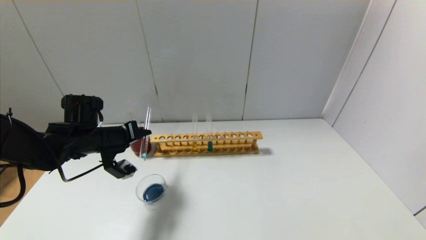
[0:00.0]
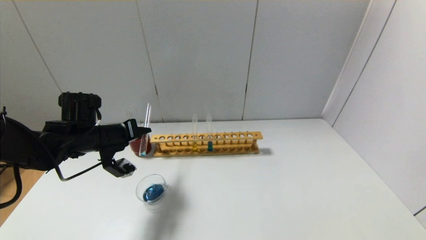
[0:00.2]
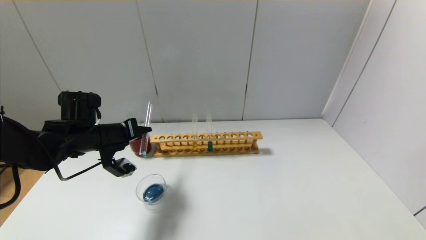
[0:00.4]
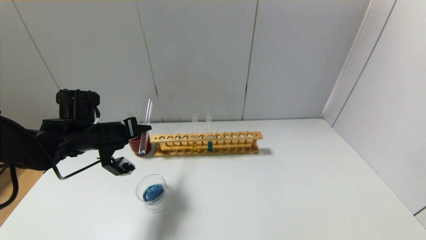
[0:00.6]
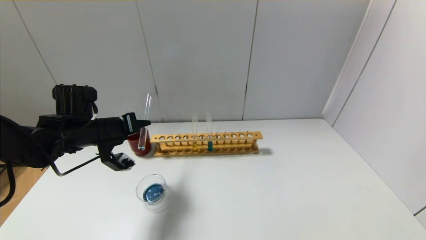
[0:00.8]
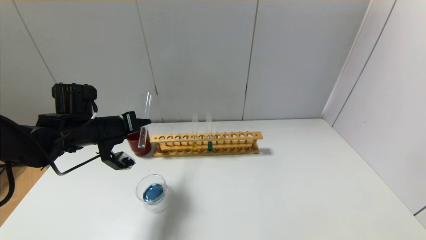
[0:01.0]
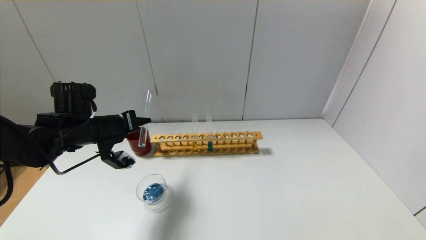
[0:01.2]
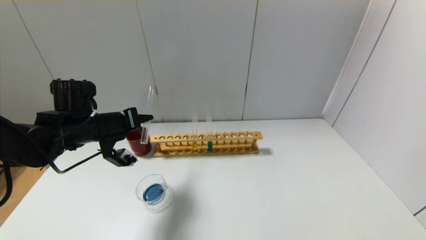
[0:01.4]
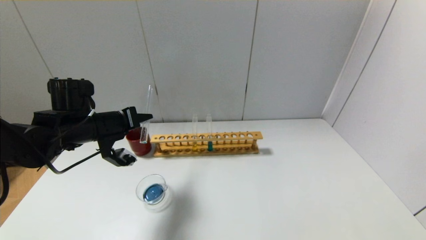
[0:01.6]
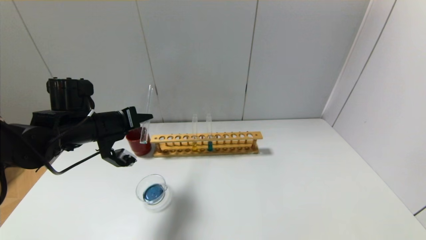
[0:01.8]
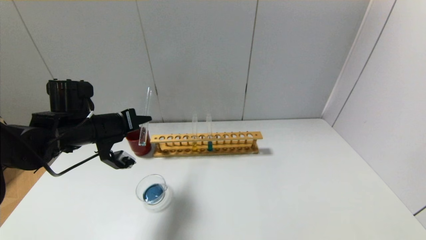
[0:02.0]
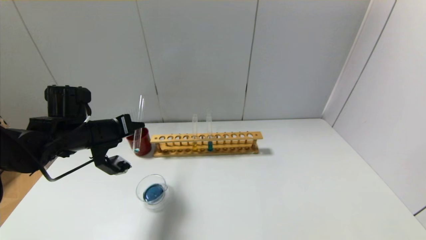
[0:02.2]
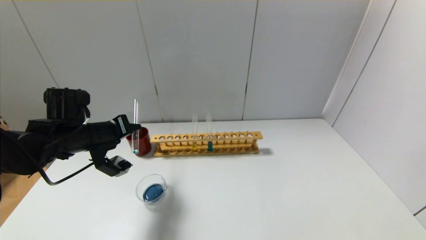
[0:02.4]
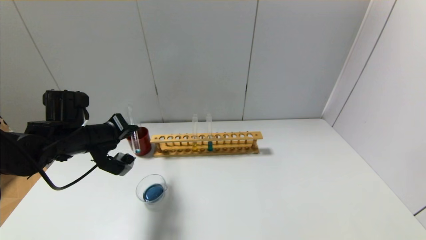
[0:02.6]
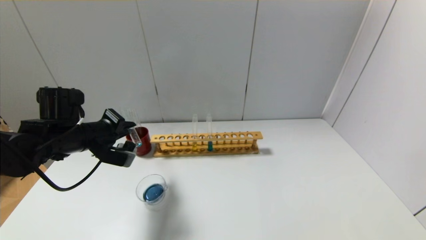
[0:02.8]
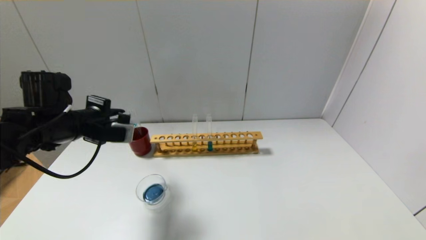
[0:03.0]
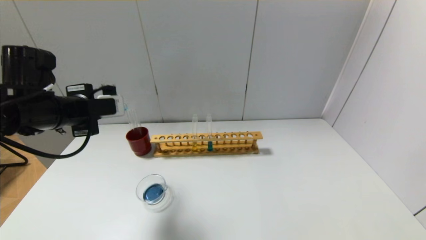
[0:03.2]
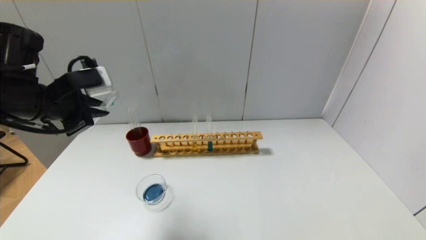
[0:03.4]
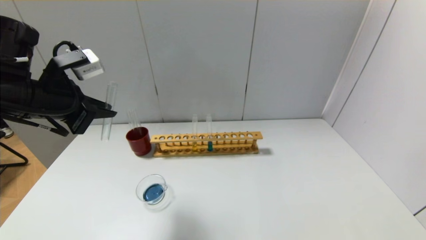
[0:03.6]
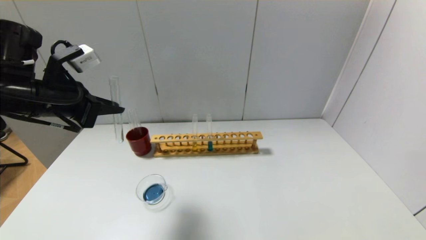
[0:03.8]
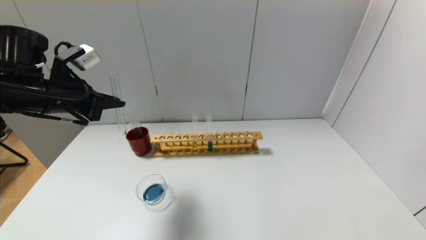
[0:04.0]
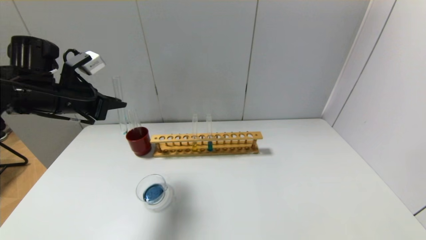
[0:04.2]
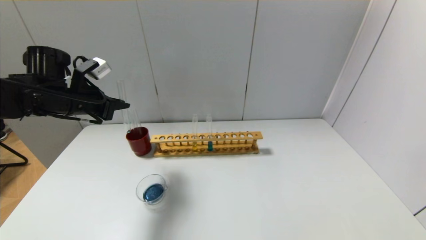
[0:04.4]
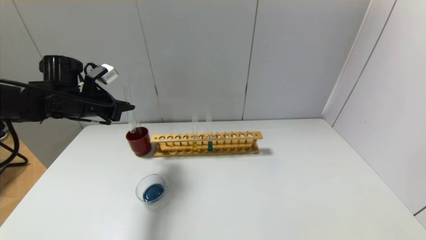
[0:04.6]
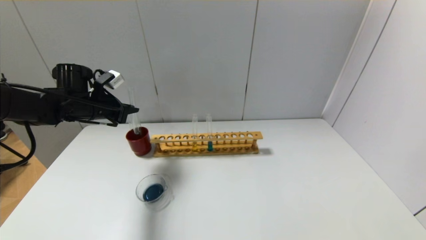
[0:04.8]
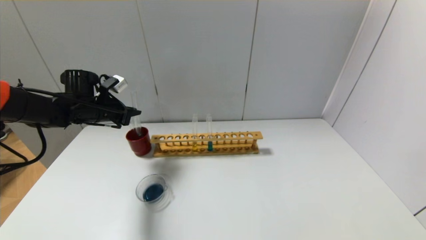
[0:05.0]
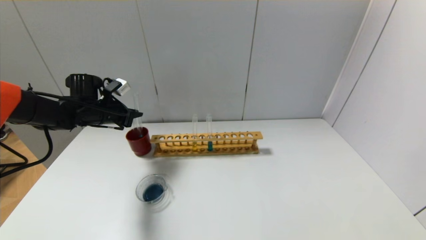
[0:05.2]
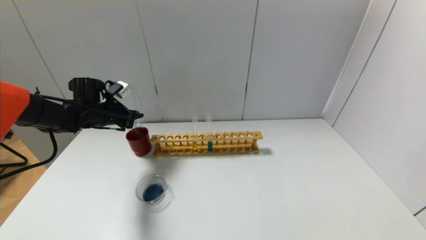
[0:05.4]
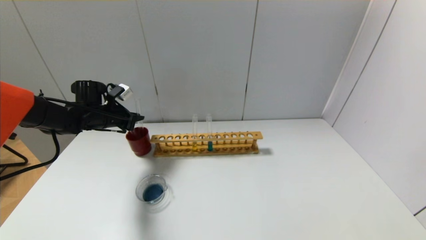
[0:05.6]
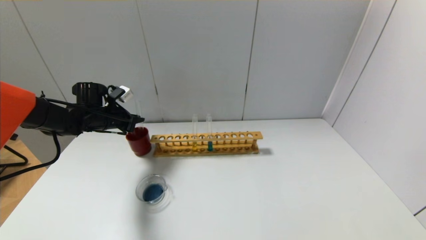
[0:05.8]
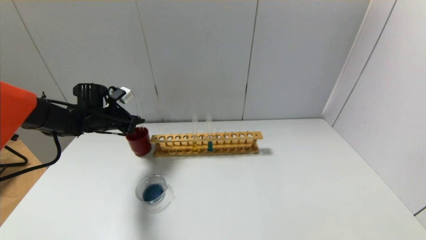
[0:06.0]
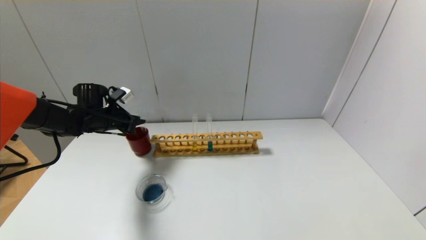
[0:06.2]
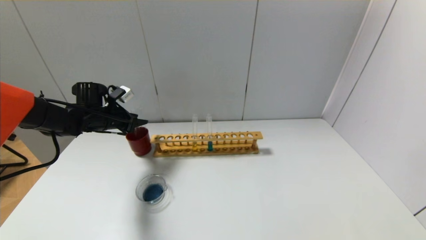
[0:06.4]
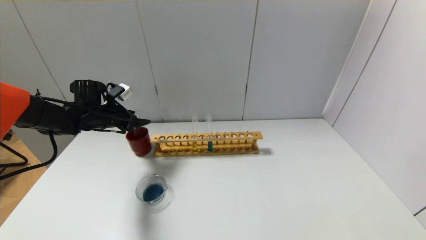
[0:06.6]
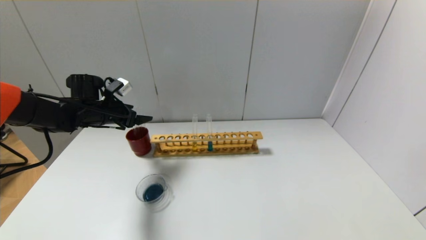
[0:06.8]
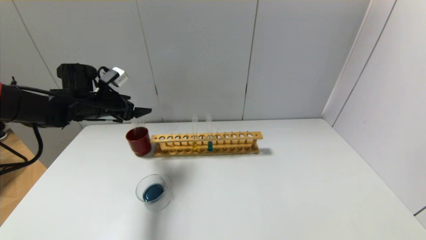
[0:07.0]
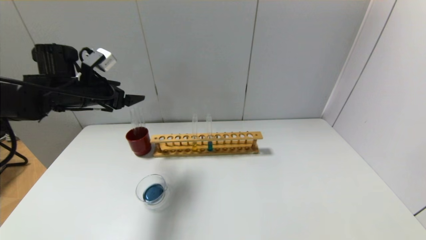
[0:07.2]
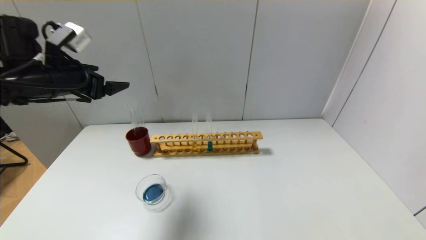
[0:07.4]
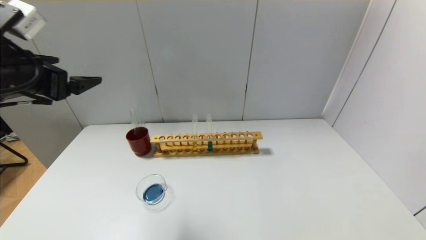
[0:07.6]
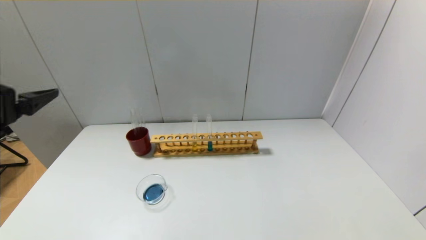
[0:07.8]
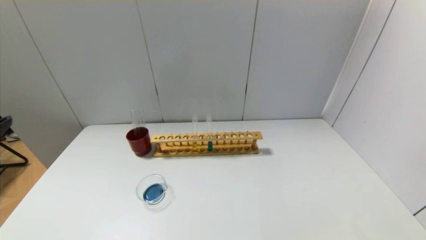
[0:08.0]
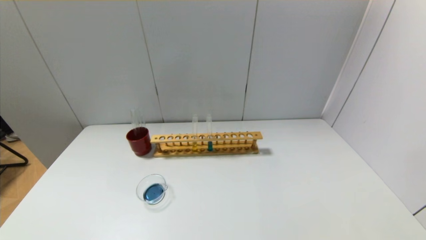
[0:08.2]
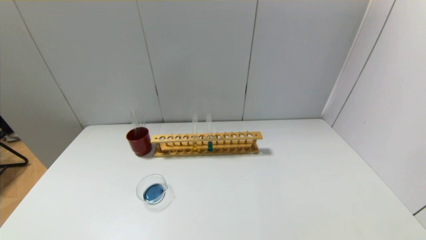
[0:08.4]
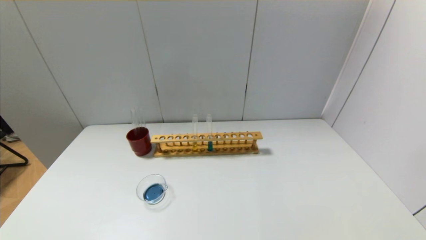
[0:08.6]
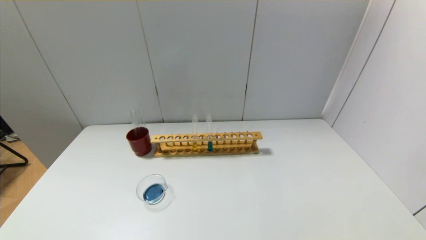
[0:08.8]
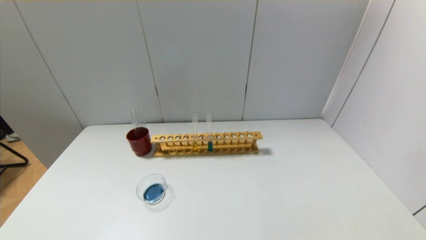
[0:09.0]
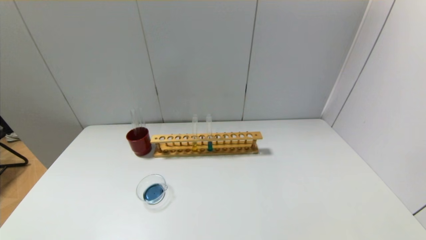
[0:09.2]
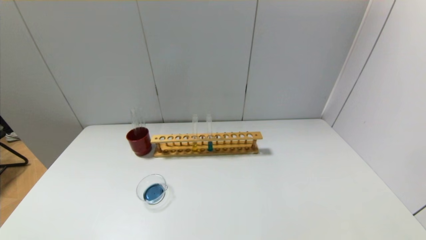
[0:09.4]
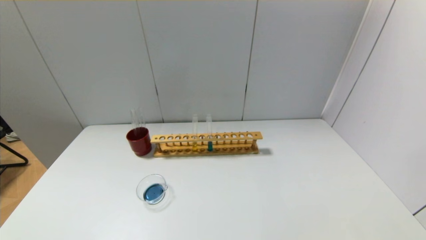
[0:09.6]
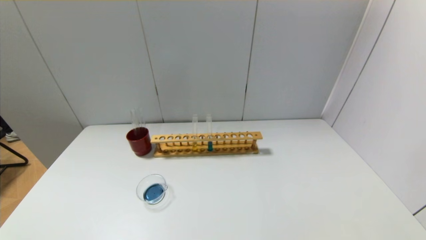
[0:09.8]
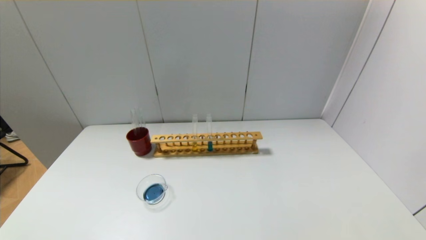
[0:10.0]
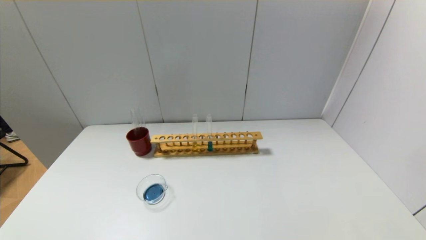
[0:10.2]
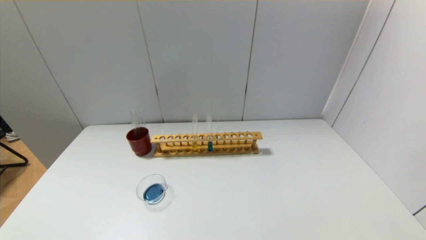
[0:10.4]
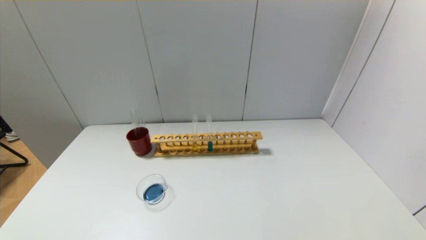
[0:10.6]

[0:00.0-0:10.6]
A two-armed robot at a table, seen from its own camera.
Step, 0:02.0 to 0:06.2: Place the test tube into the brown cup with the left gripper.
0:00.0 to 0:01.6: The grippers stay close to where they were, moving slightly.
0:03.0 to 0:04.6: The left gripper goes approximately 10 cm forward.
0:04.6 to 0:06.0: The left gripper heads downward and forward, covering roughly 10 cm.
0:06.0 to 0:07.6: The left gripper goes roughly 30 cm backward and upward, and opens its fingers.
0:07.6 to 0:09.0: The left gripper goes some 30 cm backward and downward.
